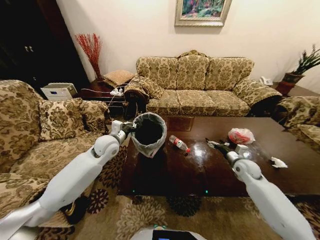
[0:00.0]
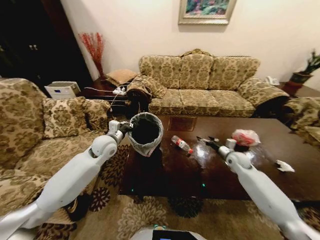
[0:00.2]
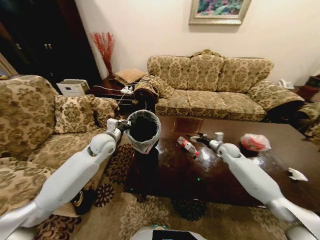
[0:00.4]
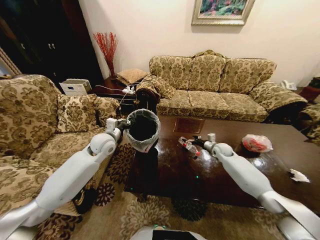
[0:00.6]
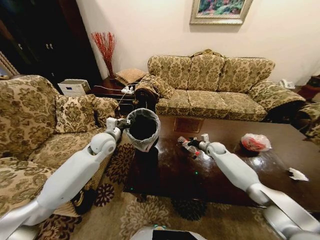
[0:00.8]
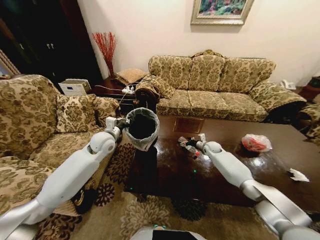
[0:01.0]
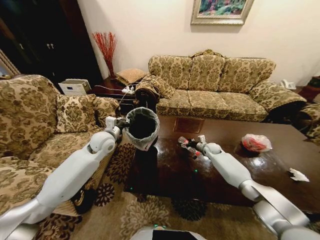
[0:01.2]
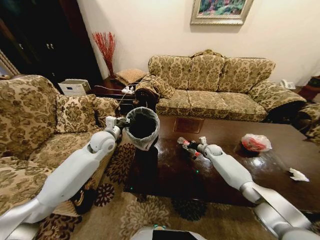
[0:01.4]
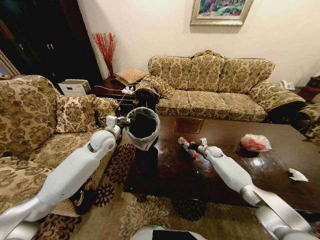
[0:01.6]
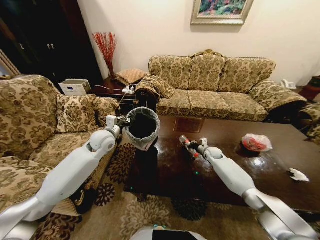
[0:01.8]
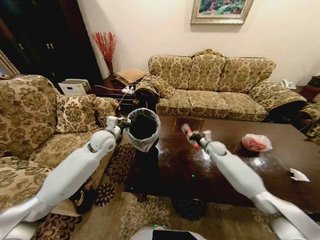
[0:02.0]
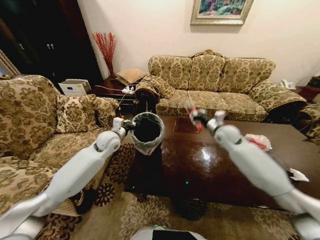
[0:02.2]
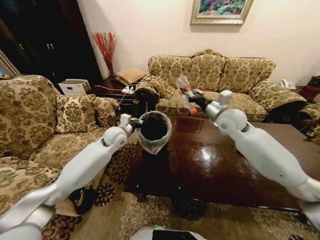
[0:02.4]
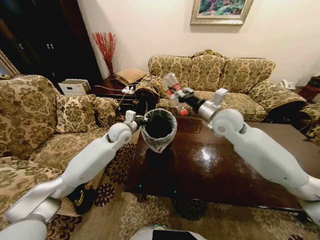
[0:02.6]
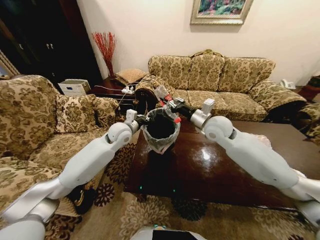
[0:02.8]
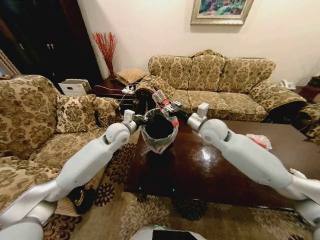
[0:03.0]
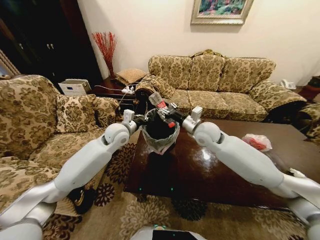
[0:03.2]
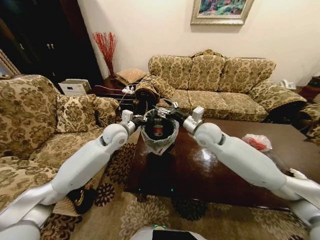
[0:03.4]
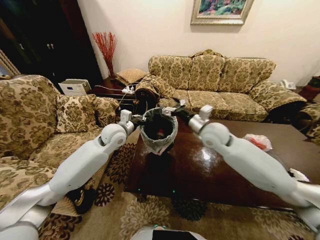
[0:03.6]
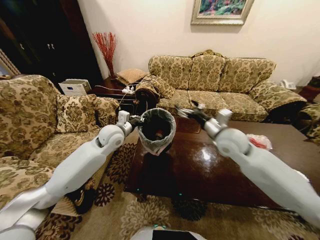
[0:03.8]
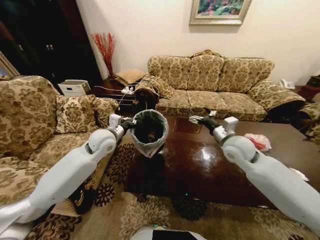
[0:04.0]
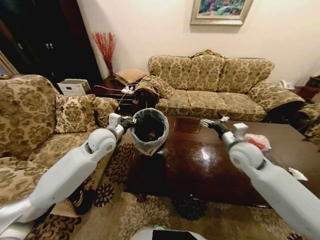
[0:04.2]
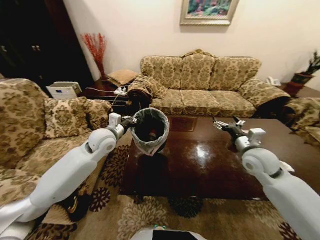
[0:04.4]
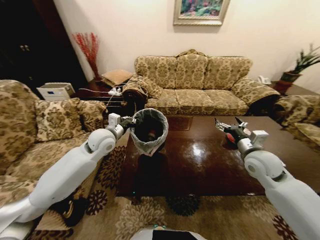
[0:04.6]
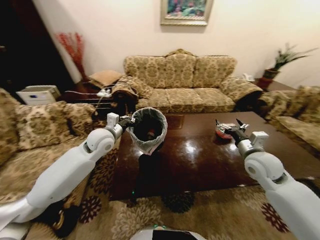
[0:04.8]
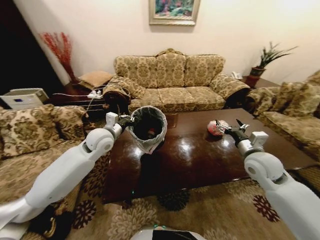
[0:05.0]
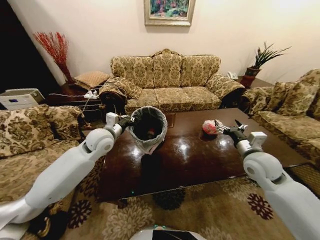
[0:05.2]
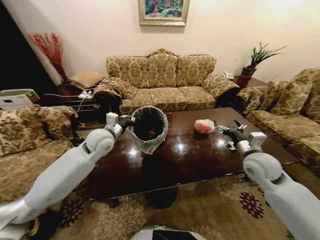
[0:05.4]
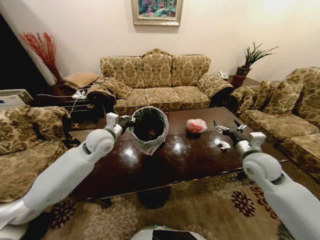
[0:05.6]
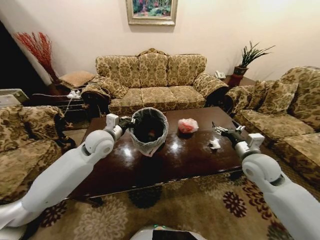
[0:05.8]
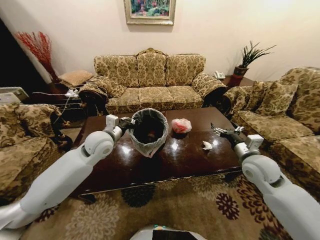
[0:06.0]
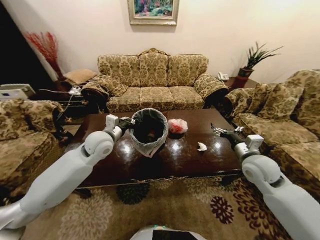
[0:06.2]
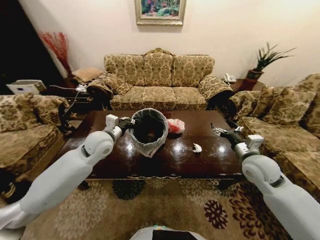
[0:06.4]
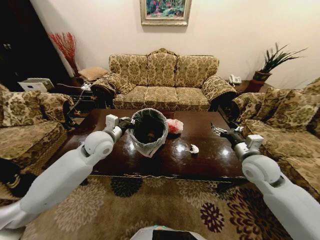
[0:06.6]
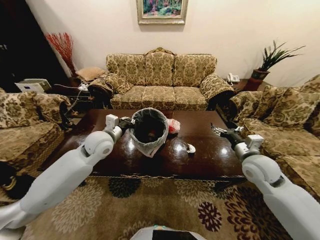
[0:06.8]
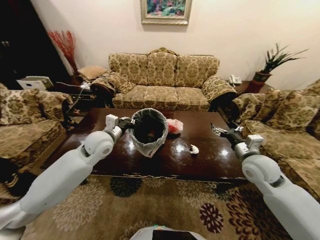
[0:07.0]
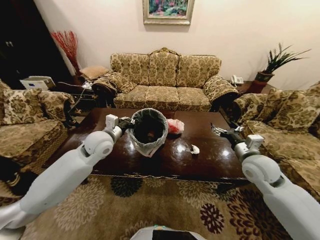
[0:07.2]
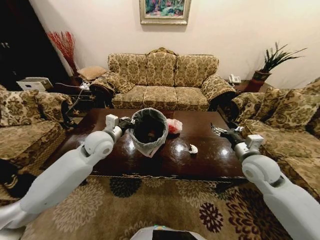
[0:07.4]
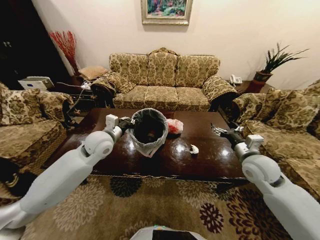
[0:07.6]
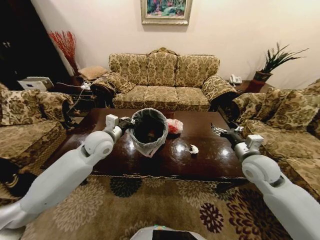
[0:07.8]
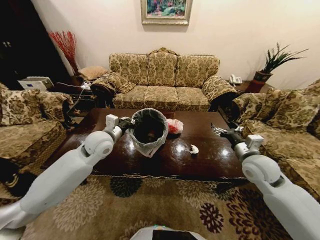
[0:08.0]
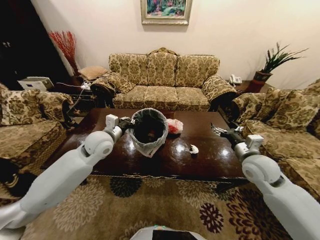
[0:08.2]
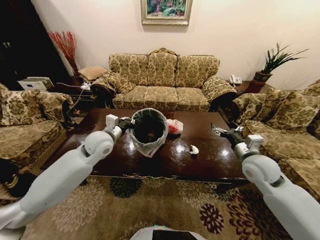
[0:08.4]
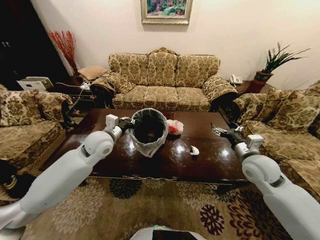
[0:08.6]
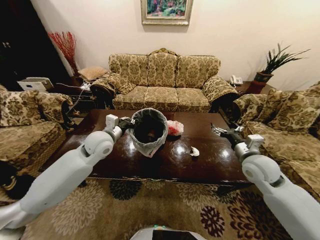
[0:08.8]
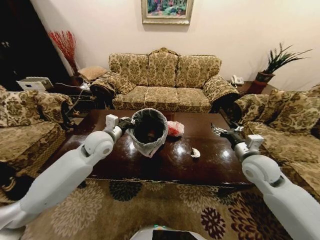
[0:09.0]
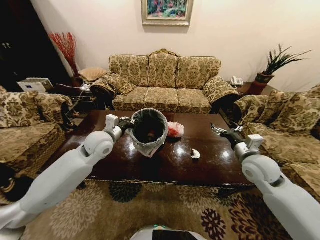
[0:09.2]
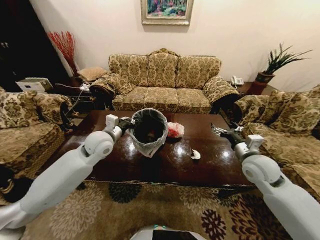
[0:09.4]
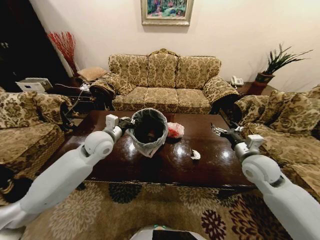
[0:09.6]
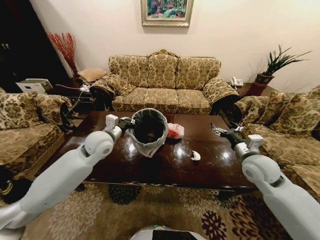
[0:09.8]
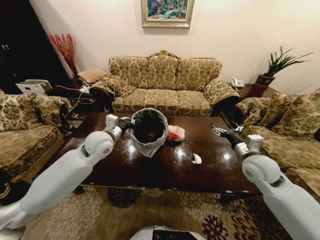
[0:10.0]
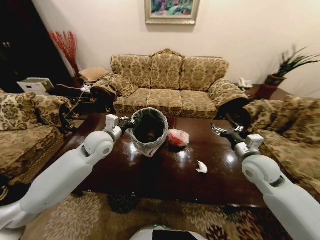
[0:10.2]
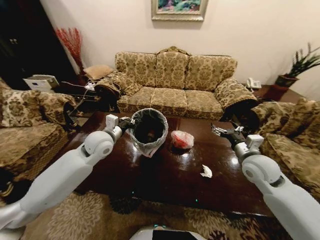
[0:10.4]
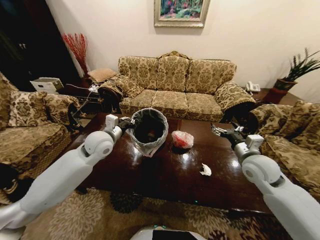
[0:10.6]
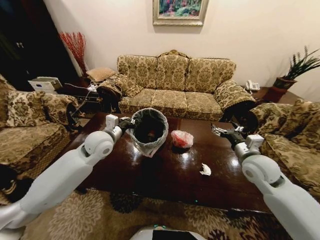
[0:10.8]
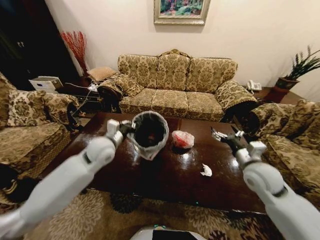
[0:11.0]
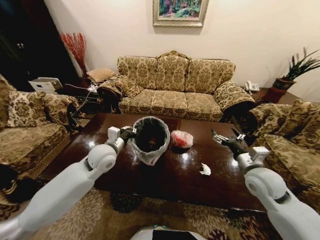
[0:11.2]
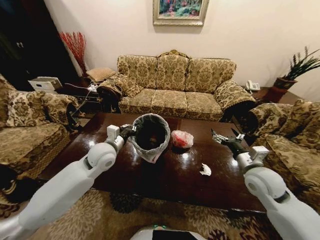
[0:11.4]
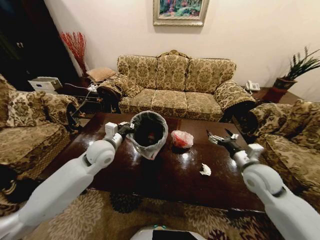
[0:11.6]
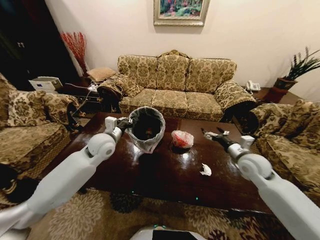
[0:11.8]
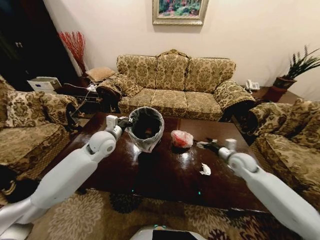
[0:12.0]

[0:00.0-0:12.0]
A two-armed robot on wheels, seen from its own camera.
Task of the whole recording: Move to the front of the table and place the trash on the table into the trash bin.
0:00.0 to 0:01.6: The right gripper travels forward, downward and to the left by roughly 20 cm, and closes its fingers.
0:01.6 to 0:03.0: The left gripper moves to the right, some 5 cm. Meanwhile the right gripper moves upward and to the left, roughly 30 cm.
0:03.0 to 0:04.4: The left gripper shifts by approximately 5 cm. The right gripper travels to the right and backward by about 20 cm, and opens up.
0:07.6 to 0:09.0: Both grippers stay put.
0:10.4 to 0:12.0: The right gripper moves downward and forward, roughly 10 cm.

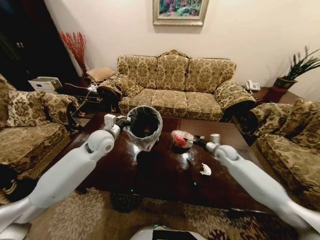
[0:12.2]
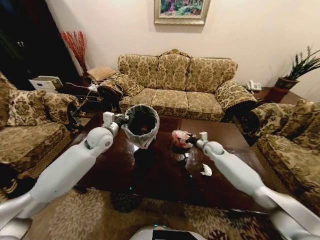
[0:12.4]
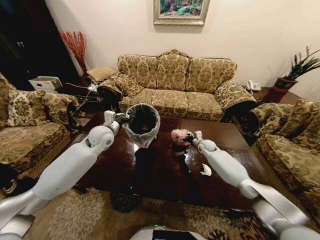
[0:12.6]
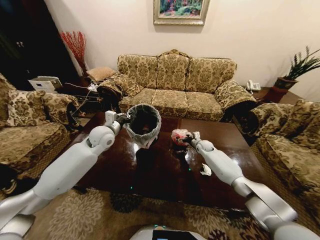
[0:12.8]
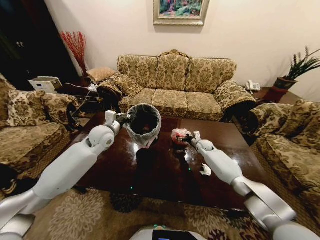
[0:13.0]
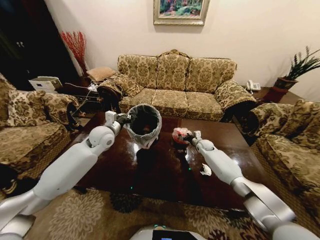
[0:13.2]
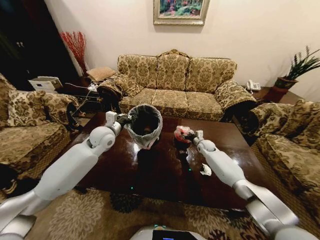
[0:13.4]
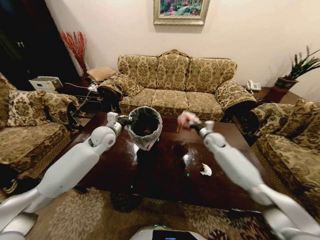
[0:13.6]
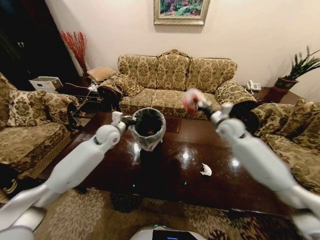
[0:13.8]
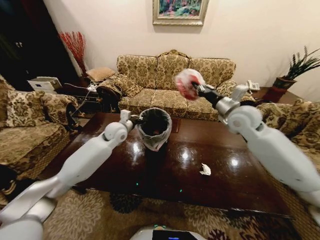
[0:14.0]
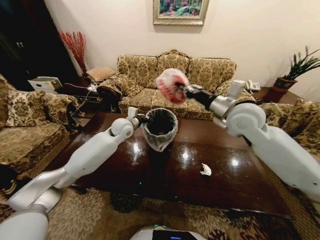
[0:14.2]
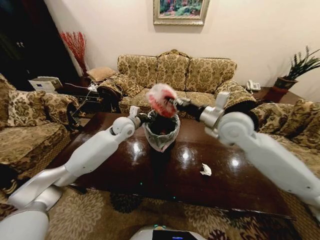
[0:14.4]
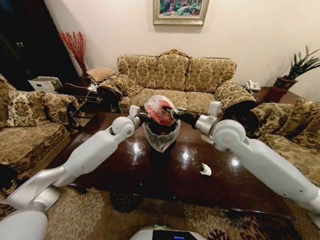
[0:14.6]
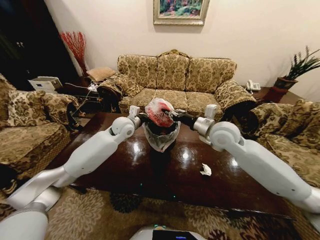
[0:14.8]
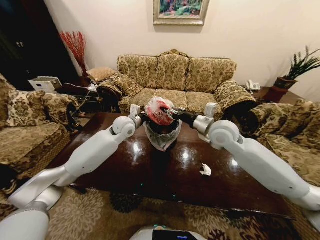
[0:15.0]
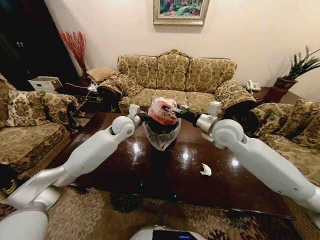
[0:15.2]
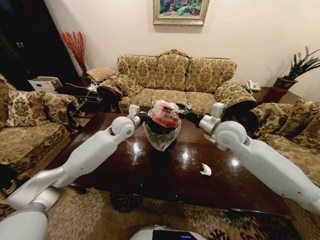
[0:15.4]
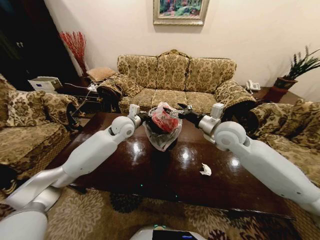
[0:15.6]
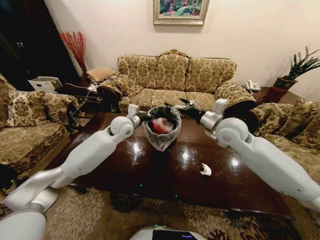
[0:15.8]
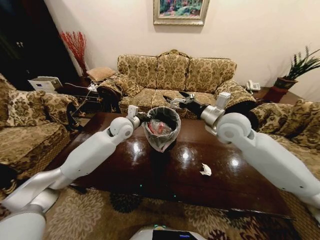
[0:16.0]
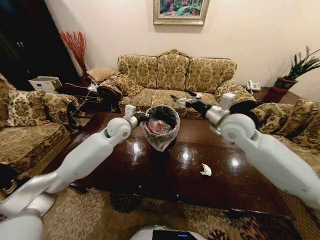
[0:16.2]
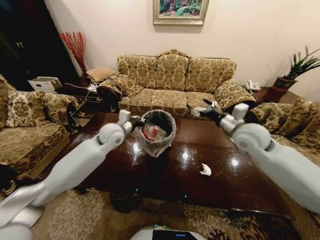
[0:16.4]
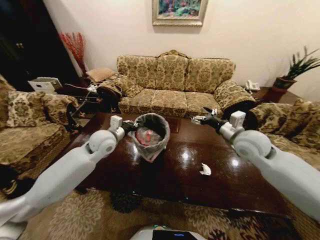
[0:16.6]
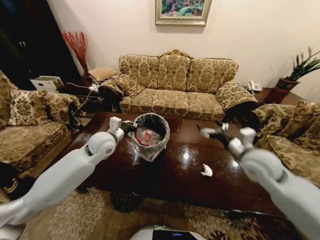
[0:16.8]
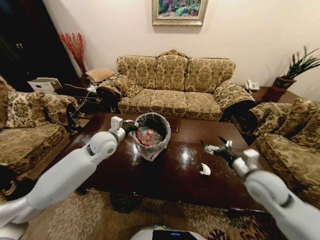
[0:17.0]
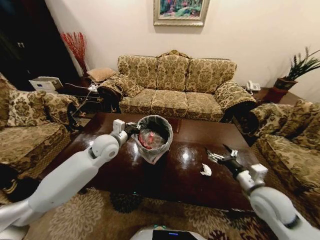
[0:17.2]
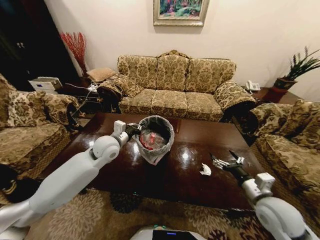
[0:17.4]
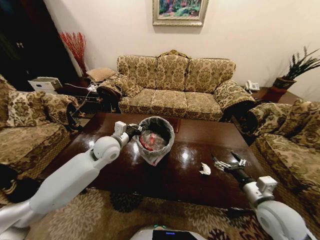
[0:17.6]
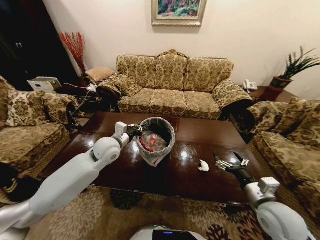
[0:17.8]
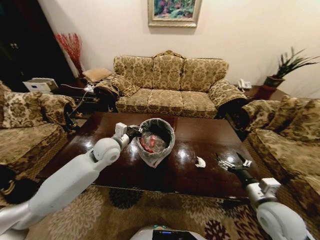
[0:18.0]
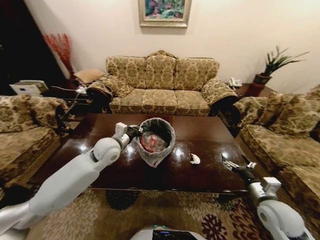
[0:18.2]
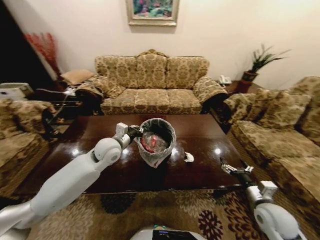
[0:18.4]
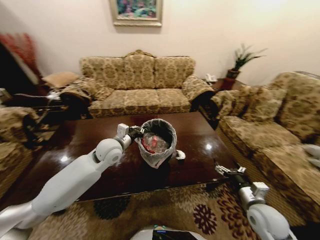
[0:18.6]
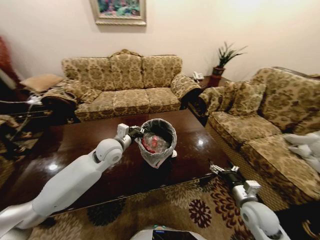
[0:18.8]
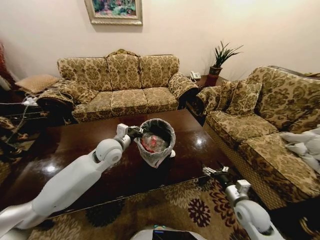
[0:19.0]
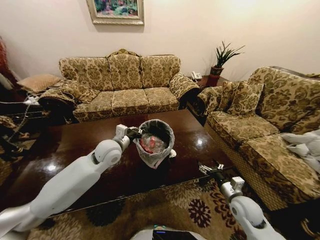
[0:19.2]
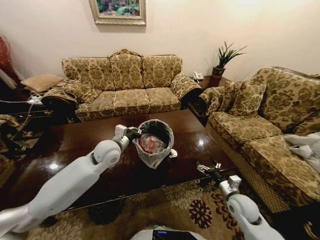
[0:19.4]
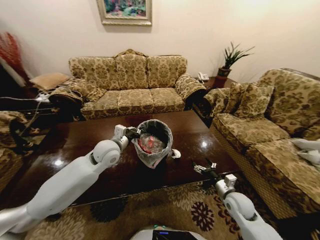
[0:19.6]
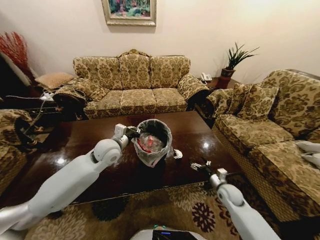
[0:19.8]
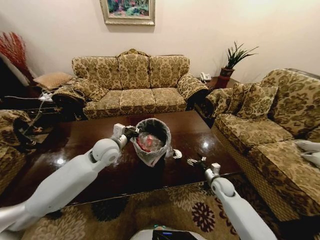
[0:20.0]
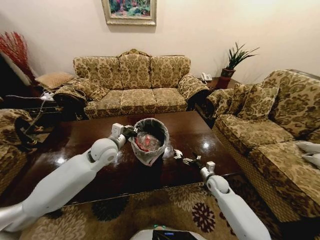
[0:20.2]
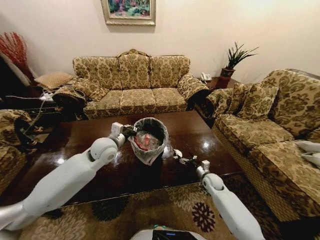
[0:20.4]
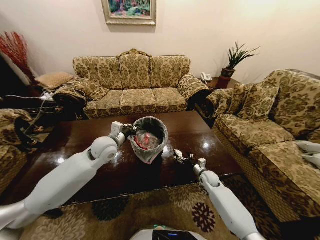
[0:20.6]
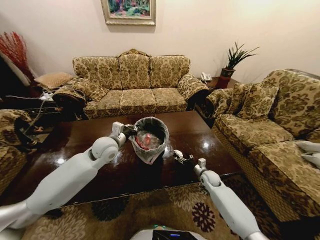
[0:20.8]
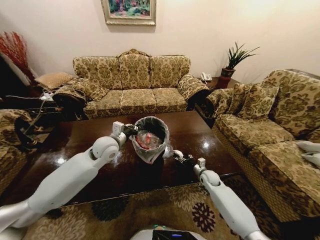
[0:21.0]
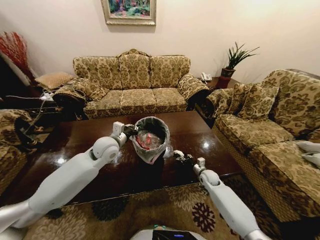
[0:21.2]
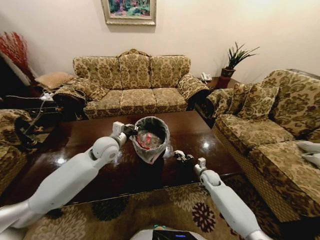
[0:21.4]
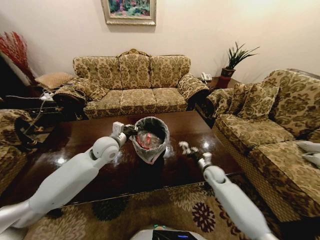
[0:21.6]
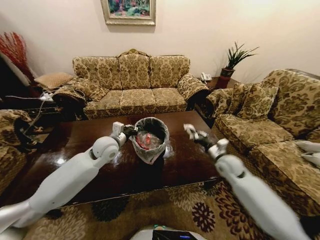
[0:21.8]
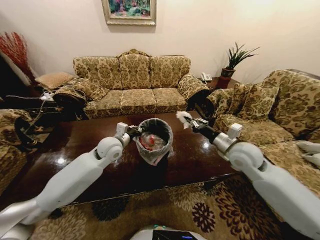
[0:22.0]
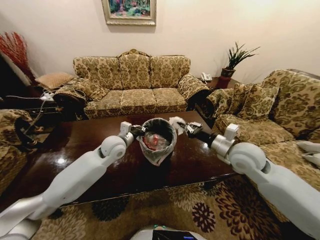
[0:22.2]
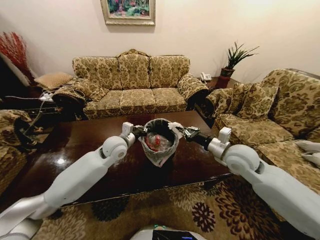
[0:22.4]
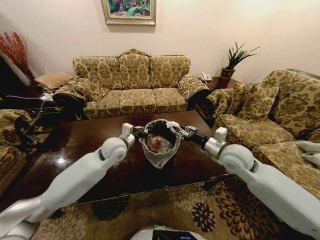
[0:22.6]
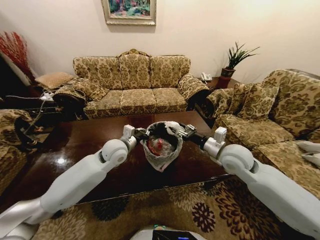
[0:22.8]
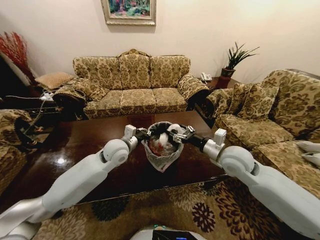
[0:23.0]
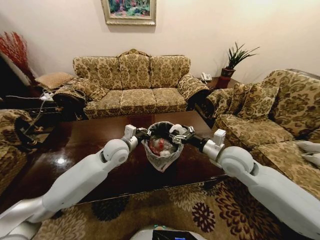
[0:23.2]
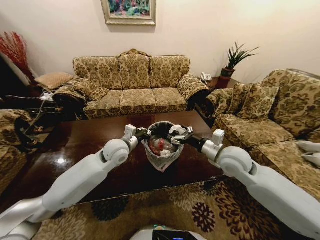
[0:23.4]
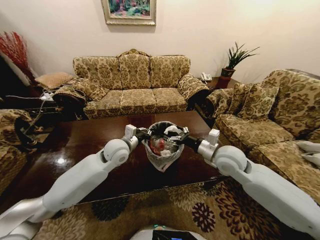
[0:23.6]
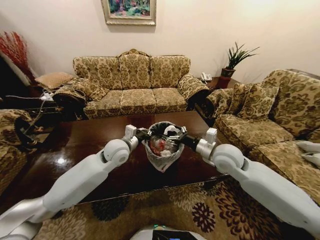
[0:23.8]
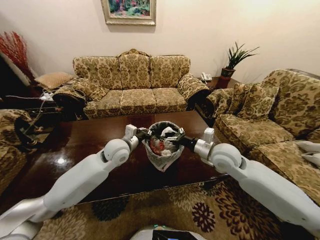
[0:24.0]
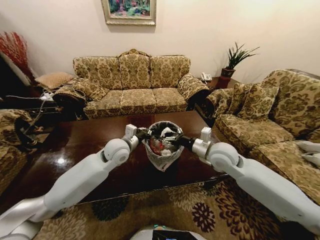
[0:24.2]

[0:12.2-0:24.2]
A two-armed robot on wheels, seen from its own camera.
Task of the whole recording: Move to the front of the table and place the trash on the table into the trash bin.
0:12.2 to 0:13.8: The right gripper is displaced upward by approximately 15 cm, and closes up.
0:13.8 to 0:15.2: The right gripper travels backward, to the left and upward by approximately 15 cm, and opens. Meanwhile the left gripper goes roughly 5 cm to the right.
0:15.2 to 0:16.6: The left gripper is displaced backward and to the left by approximately 10 cm, while the right gripper goes roughly 10 cm to the right, and opens up.
0:16.6 to 0:18.2: The right gripper moves downward, backward and to the right, approximately 25 cm.
0:18.2 to 0:19.8: The right gripper travels downward and forward by about 15 cm.
0:19.8 to 0:21.2: The right gripper moves forward and to the left, about 10 cm, and closes.
0:21.2 to 0:22.6: The right gripper travels upward by about 30 cm.
0:22.6 to 0:24.2: The right gripper opens.
